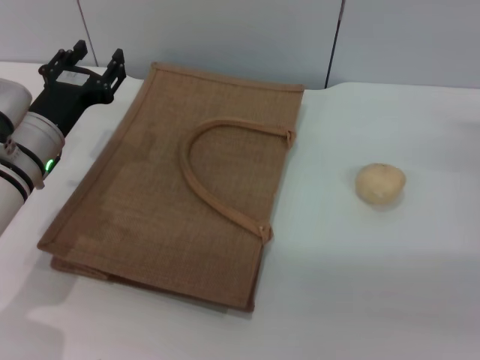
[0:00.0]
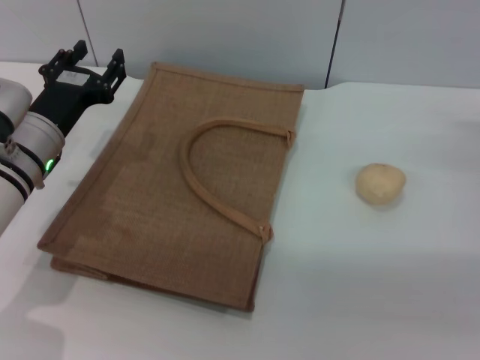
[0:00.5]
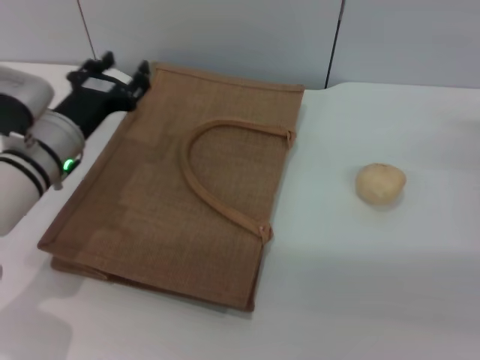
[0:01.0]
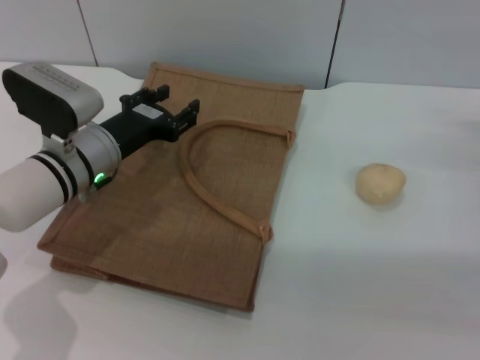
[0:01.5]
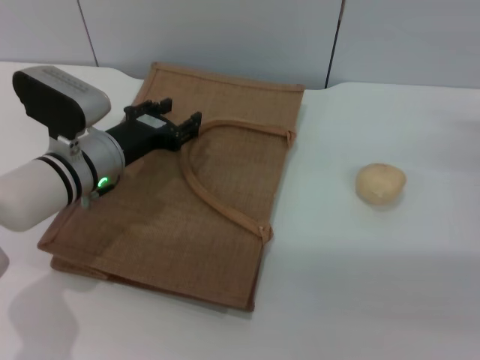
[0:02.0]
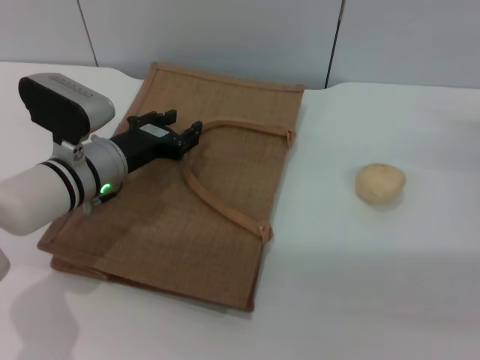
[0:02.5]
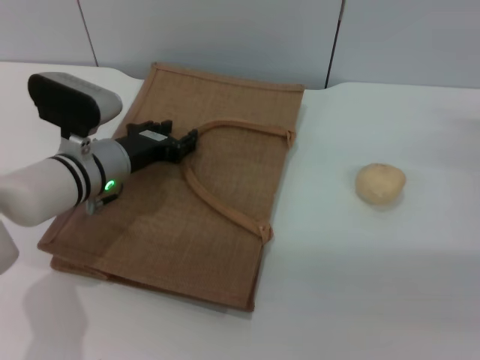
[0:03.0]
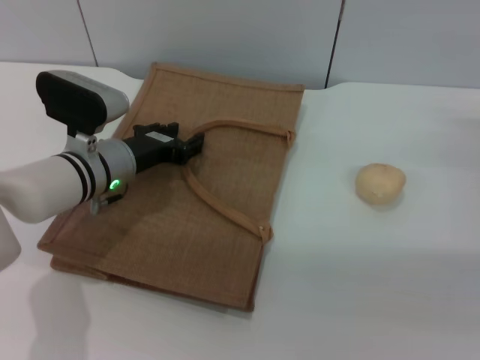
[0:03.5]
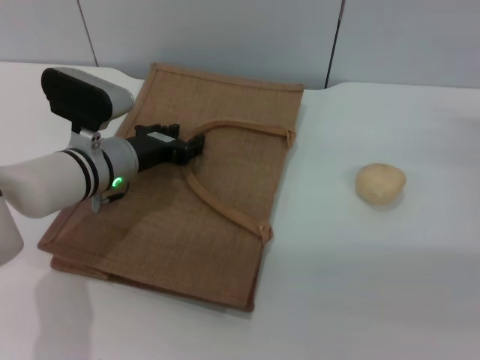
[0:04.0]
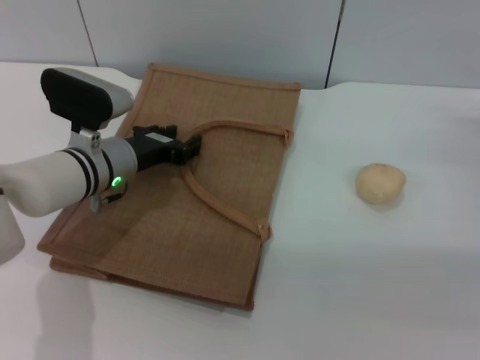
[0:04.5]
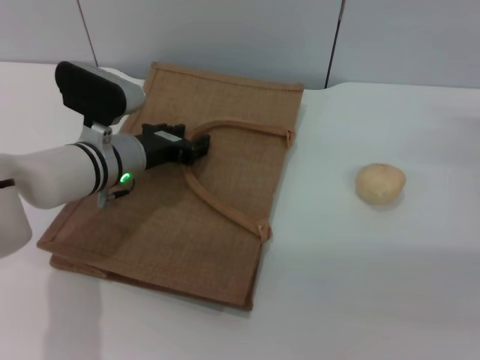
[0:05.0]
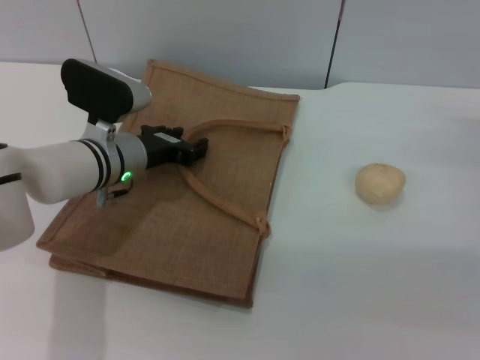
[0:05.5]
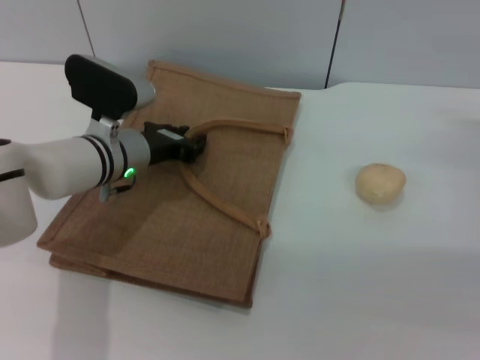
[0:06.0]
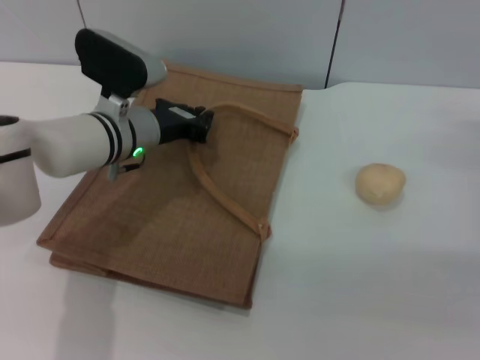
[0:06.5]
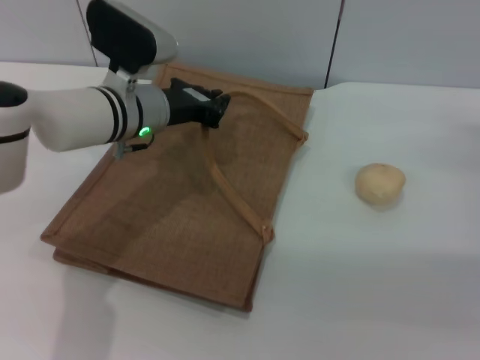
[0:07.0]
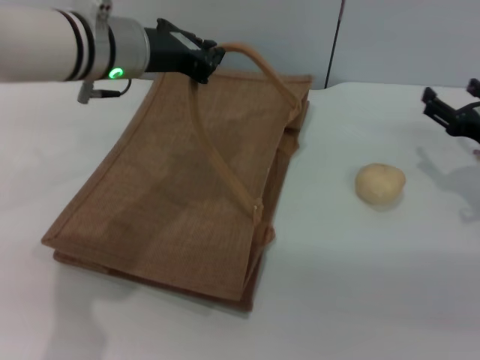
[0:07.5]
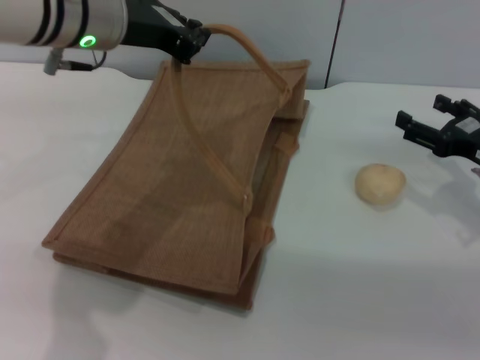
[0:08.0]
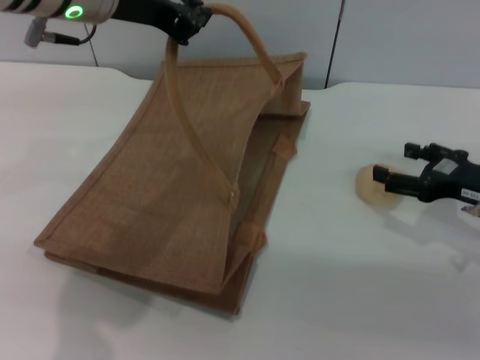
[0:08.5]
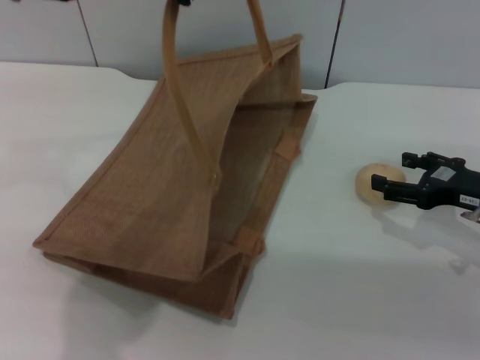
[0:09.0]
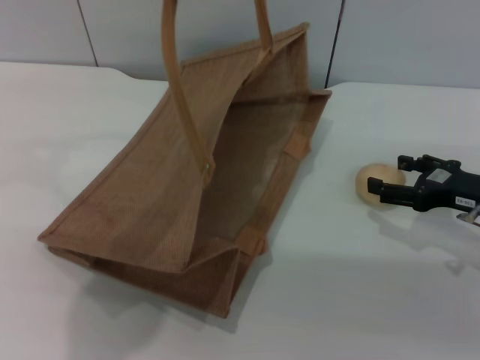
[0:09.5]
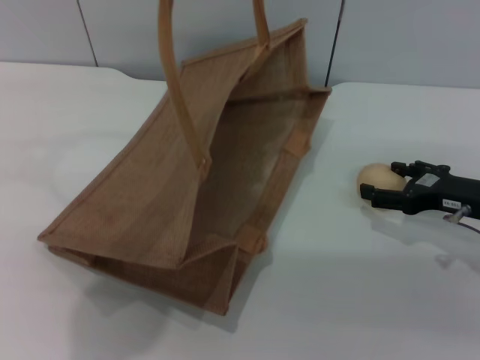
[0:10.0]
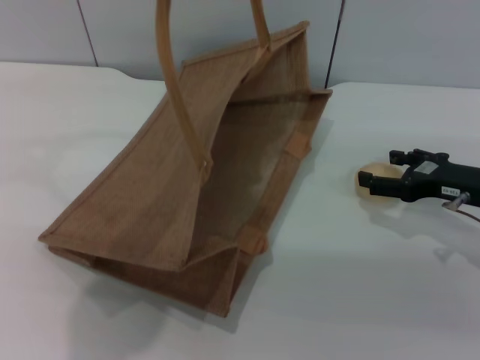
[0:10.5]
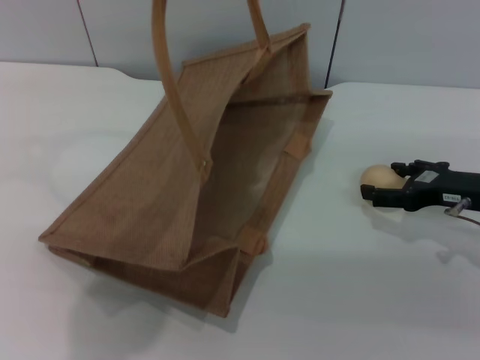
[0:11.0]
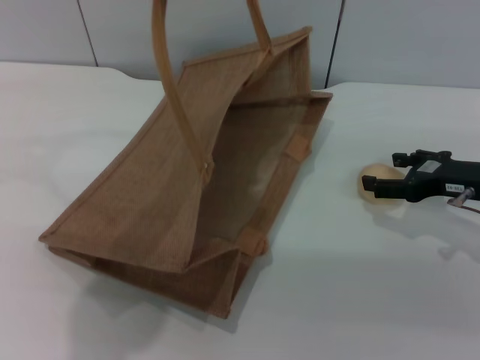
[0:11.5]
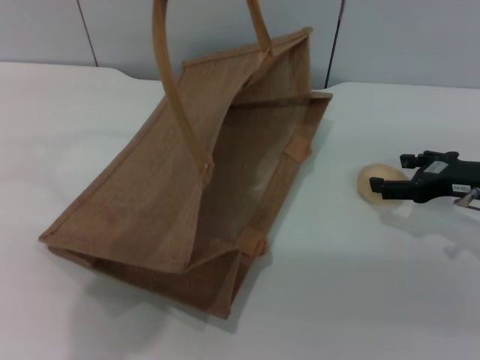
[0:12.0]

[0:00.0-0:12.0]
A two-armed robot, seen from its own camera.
Task of the whole recording: pick up the egg yolk pastry from the table and place it in the brown handbag.
Step, 0:00.0 to 0:07.0: Lift the woven bag with the left gripper to open it.
0:02.0 to 0:06.0: The grippers stay close to where they were, moving slightly.
0:06.0 to 0:08.0: The left gripper goes roughly 20 cm upward, and closes.
0:08.0 to 0:10.0: The left gripper goes roughly 10 cm upward.
0:10.0 to 0:12.0: The grippers make only small movements.

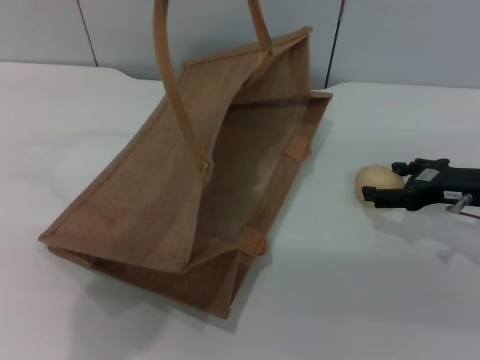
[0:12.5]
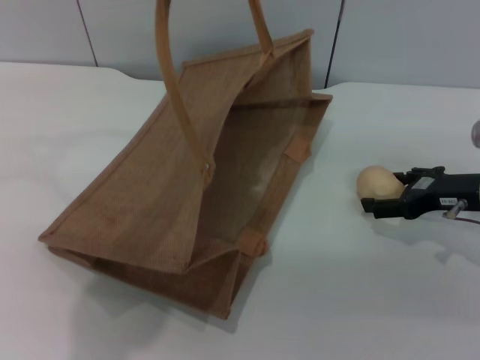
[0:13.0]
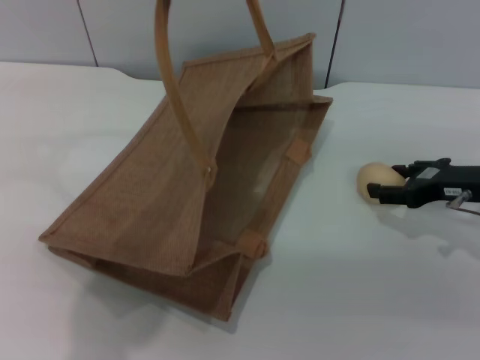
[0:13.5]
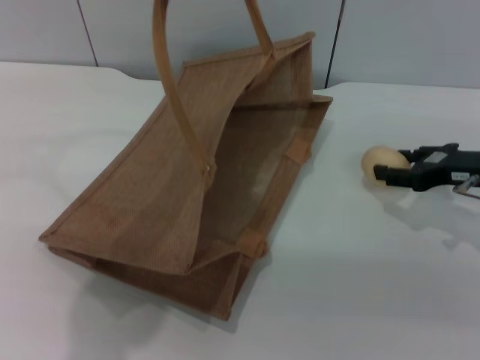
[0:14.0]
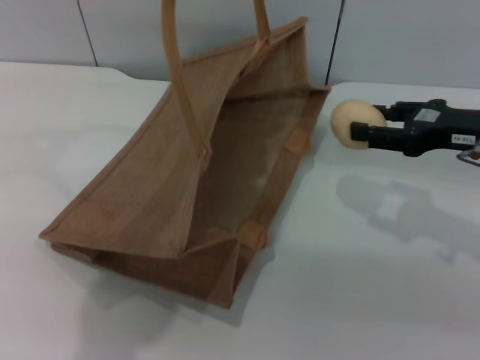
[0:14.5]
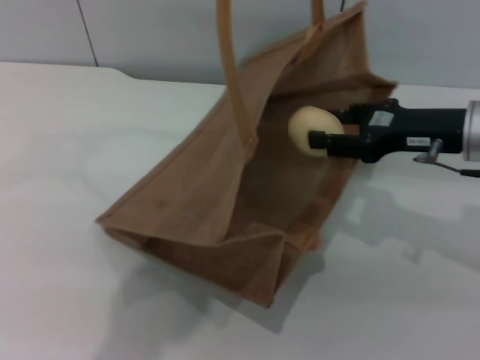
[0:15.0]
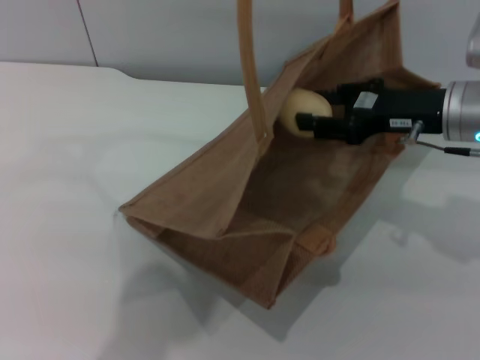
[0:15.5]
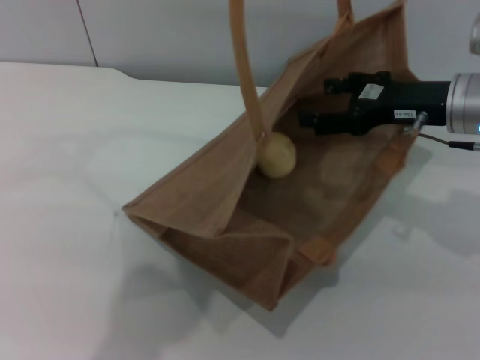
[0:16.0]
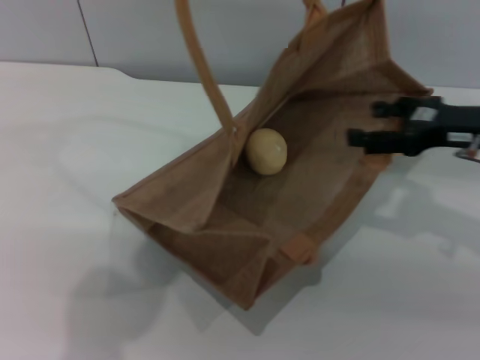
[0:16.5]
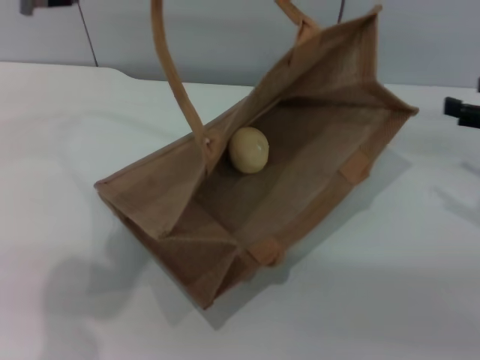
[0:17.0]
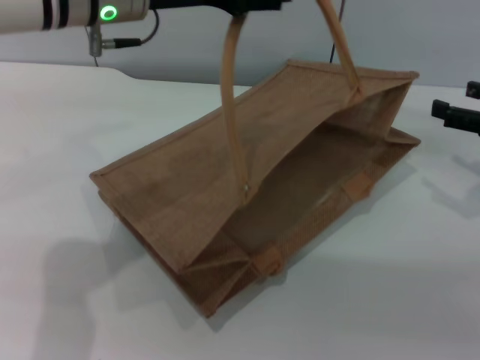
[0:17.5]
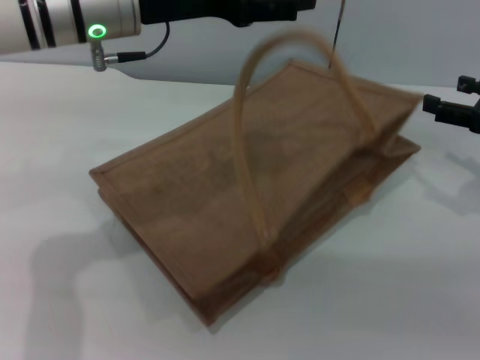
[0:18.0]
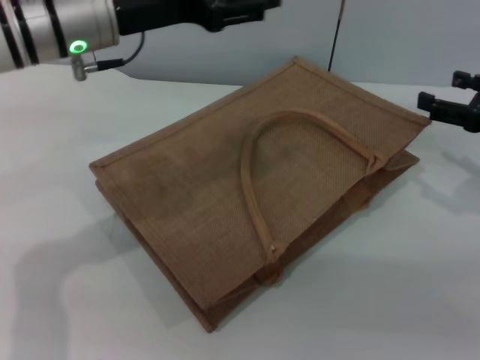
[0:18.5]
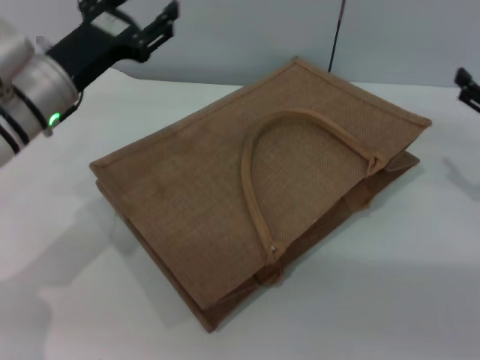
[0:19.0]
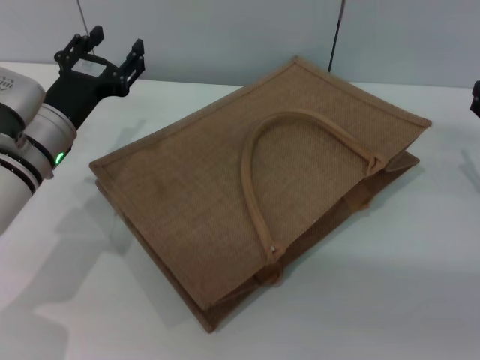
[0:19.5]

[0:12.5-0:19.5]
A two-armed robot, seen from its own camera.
Task of the whole recording: pick up the egg yolk pastry from the table and place it in the brown handbag.
Step, 0:14.5 to 0:16.5: Place the egg yolk pastry into the woven bag with the right gripper.
Step, 0:17.0 to 0:18.5: Lower the woven bag with the left gripper to close it.
0:12.5 to 0:14.5: The right gripper shifts about 5 cm upward, and closes.
0:14.5 to 0:16.0: The right gripper goes roughly 5 cm to the left, and opens up.
0:16.0 to 0:17.5: The right gripper moves to the right, roughly 10 cm, and opens its fingers; the left gripper heads downward and to the left, covering approximately 15 cm, and opens up.
0:17.5 to 0:19.5: The left gripper heads downward and to the left, covering about 20 cm; the right gripper goes approximately 10 cm downward.
